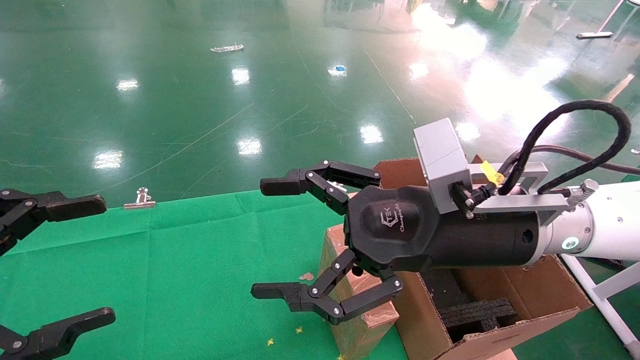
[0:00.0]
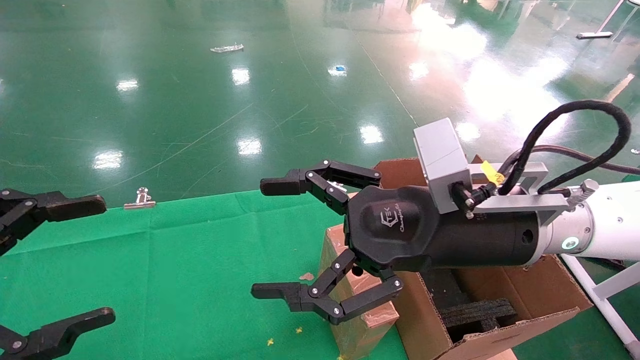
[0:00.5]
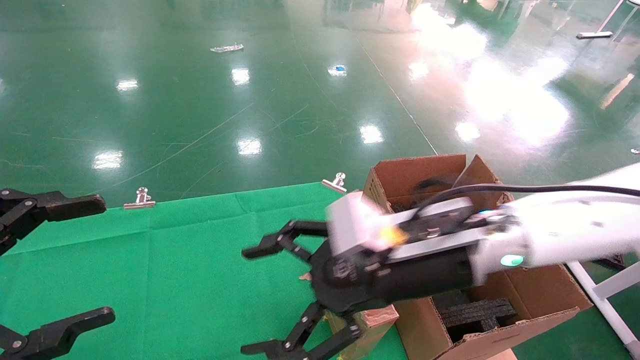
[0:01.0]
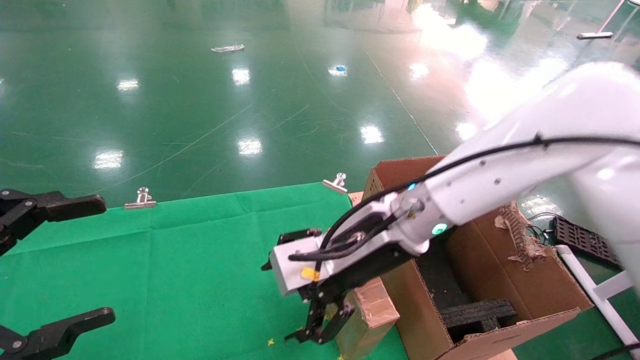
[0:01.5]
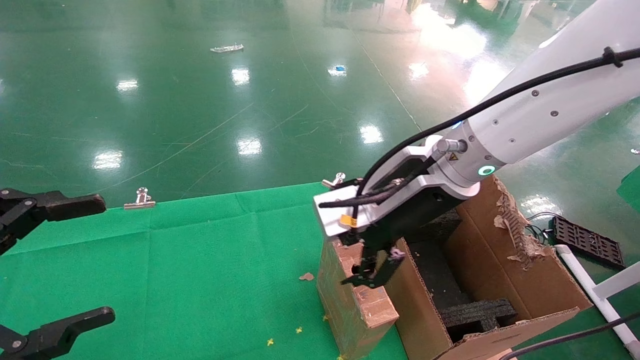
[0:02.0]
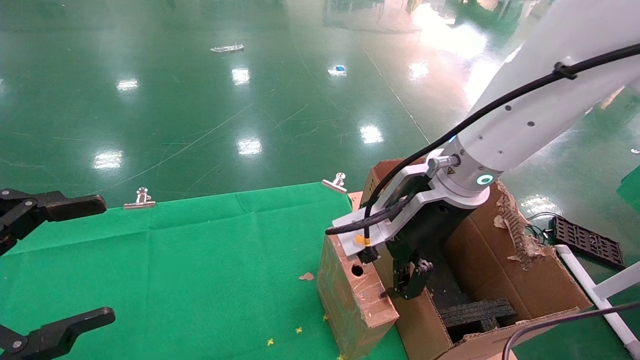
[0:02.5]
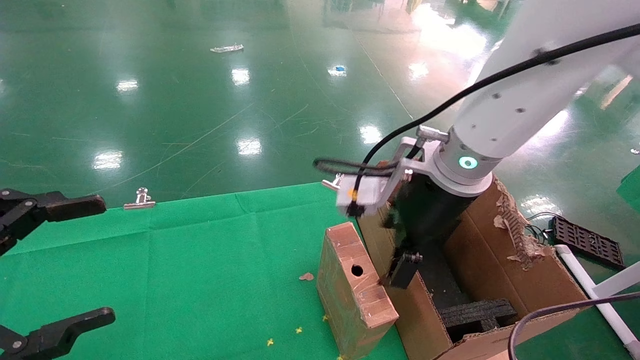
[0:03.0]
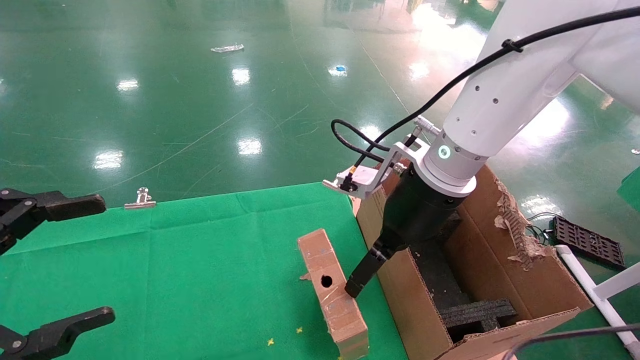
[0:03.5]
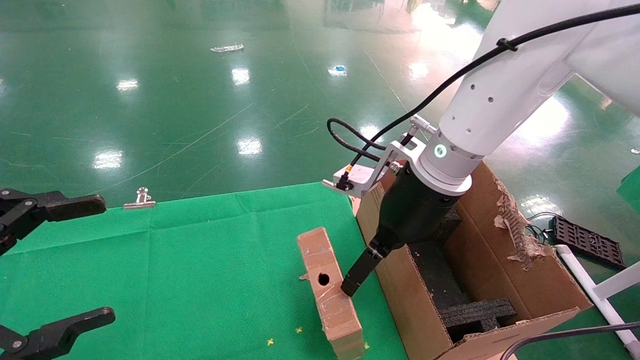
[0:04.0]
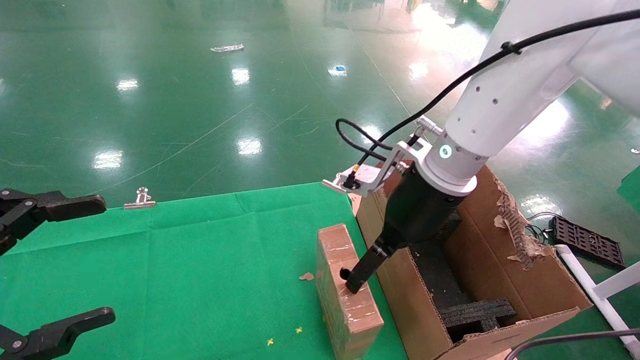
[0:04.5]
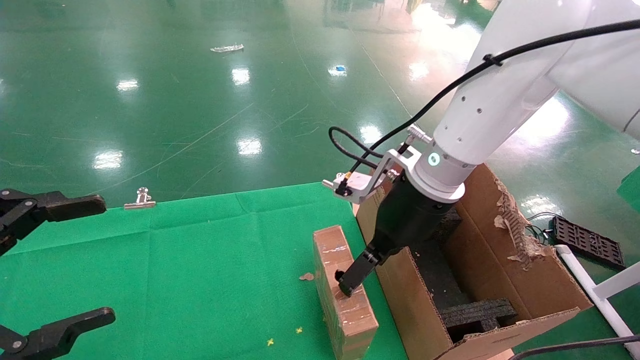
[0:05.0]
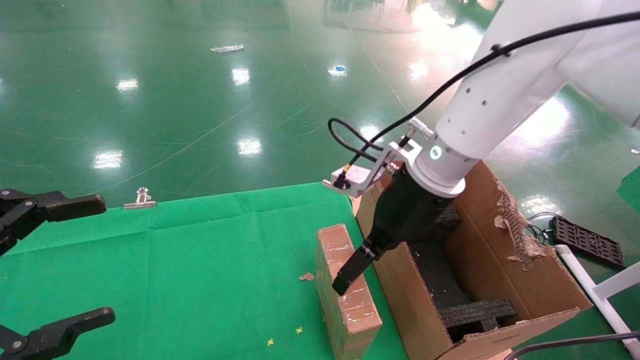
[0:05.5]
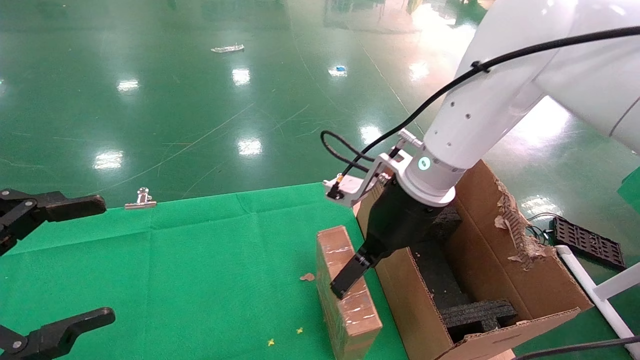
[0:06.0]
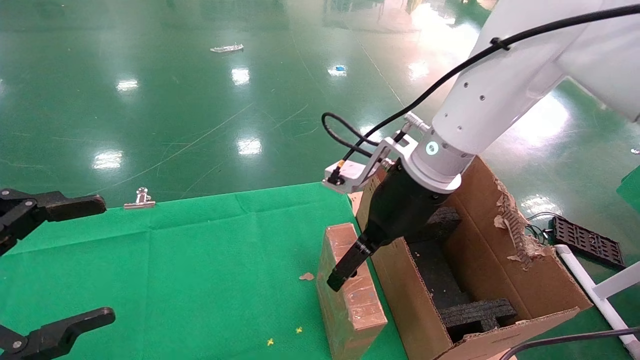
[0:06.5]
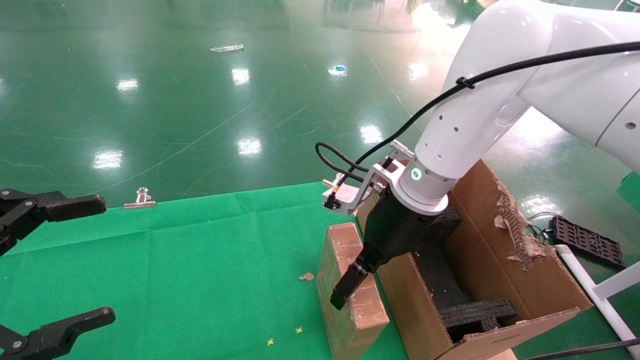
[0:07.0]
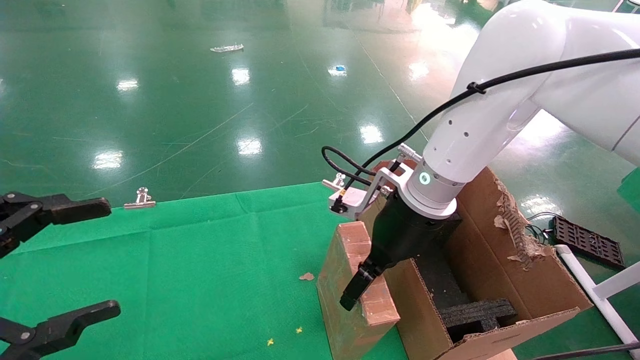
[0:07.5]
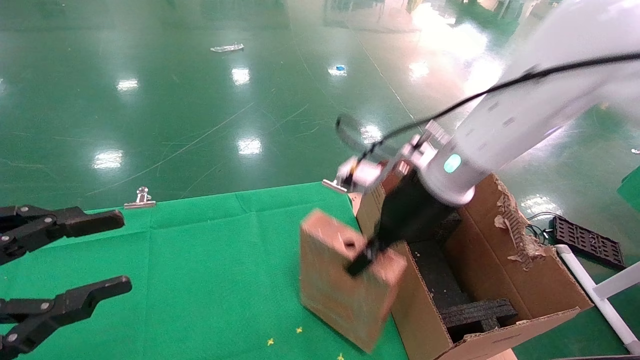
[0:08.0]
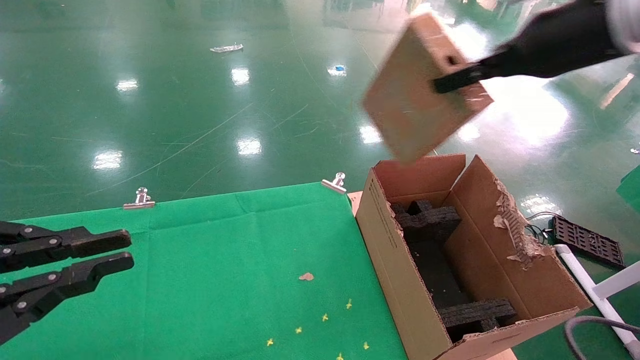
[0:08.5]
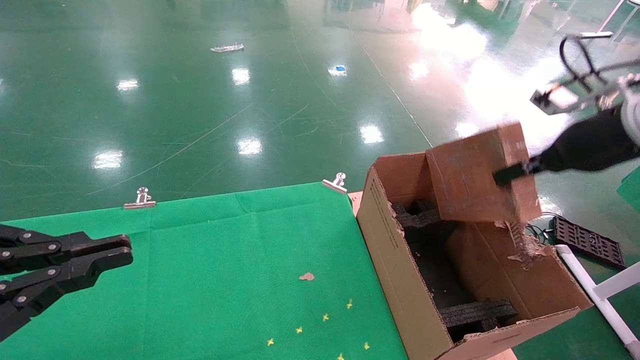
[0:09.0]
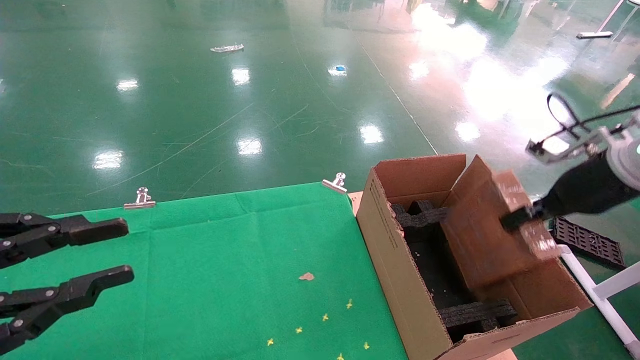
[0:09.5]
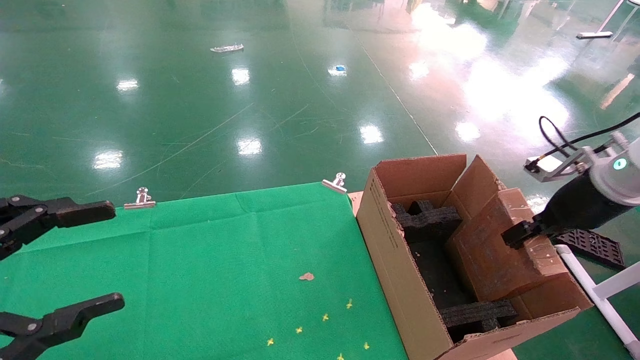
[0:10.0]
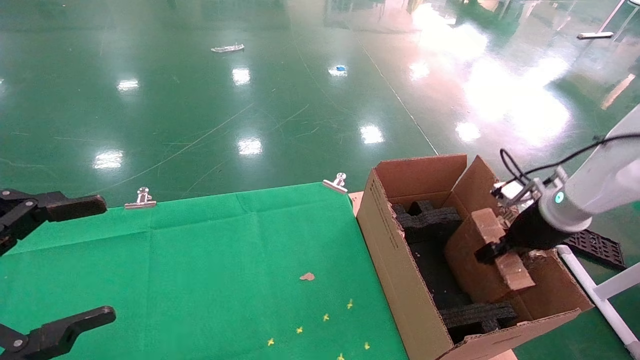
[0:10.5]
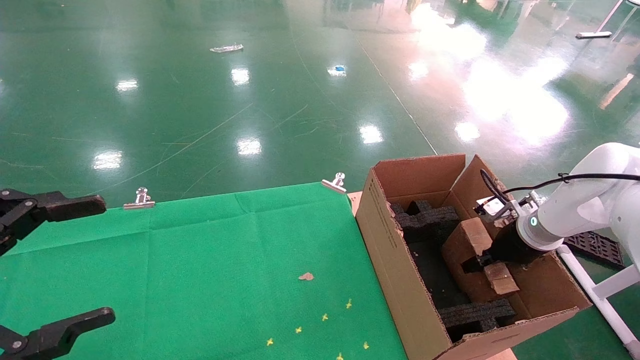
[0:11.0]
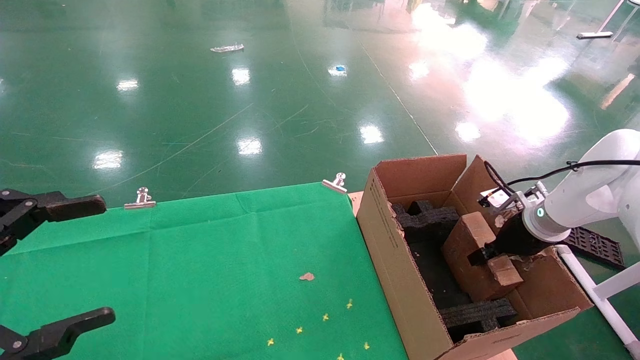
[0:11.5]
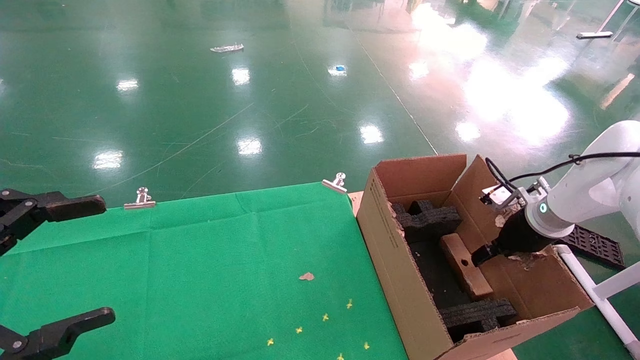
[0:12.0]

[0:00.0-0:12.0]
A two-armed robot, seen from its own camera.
Task of the whole recording: using a robotic arm to pick up a cardboard box and palace it the carton.
Step, 0:01.0 to 0:07.5: Pick up the mouse and the power cord paper box.
0:00.0 to 0:02.0: The right gripper heads forward, covering about 5 cm.
0:04.0 to 0:06.0: There are only small adjustments of the grippers.
0:06.0 to 0:08.0: The left gripper closes its fingers, while the right gripper closes.
0:08.0 to 0:10.0: The right gripper heads to the right, covering approximately 25 cm. The left gripper closes and opens again.
0:10.0 to 0:12.0: The right gripper moves downward and forward, about 10 cm, and opens up; the left gripper opens.

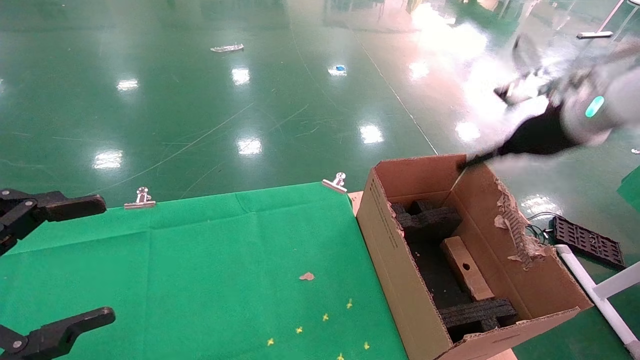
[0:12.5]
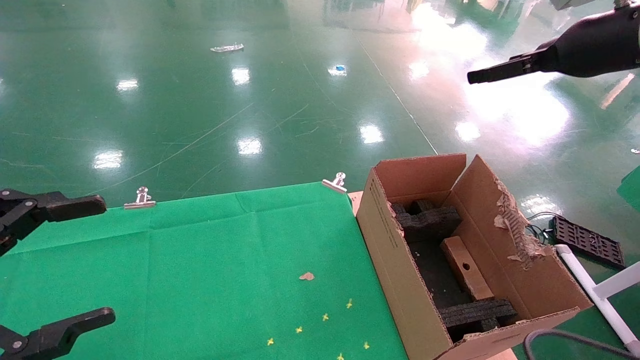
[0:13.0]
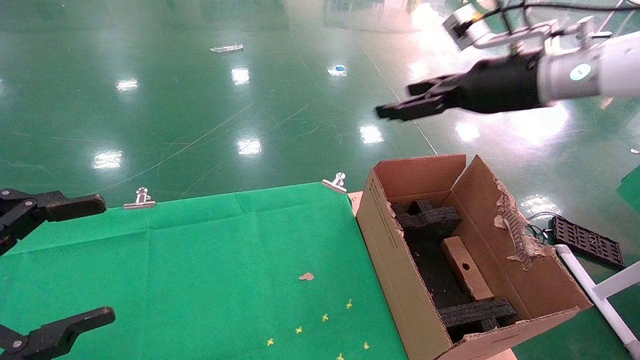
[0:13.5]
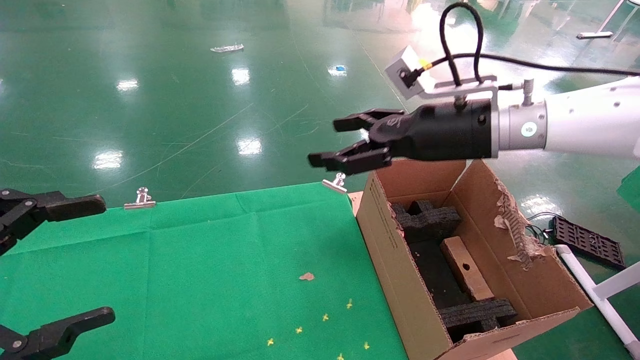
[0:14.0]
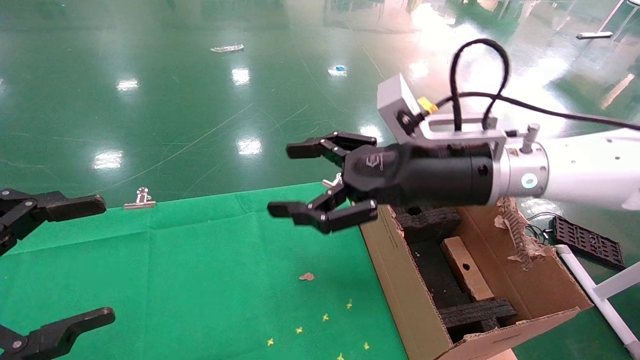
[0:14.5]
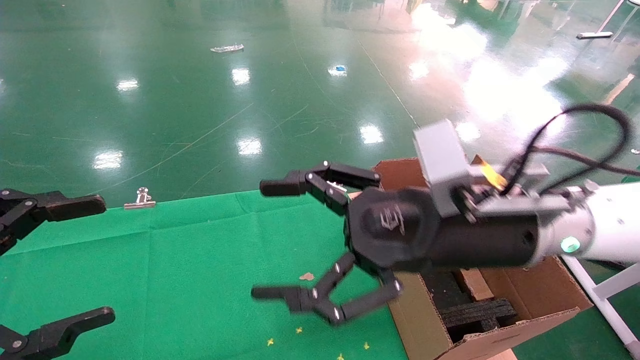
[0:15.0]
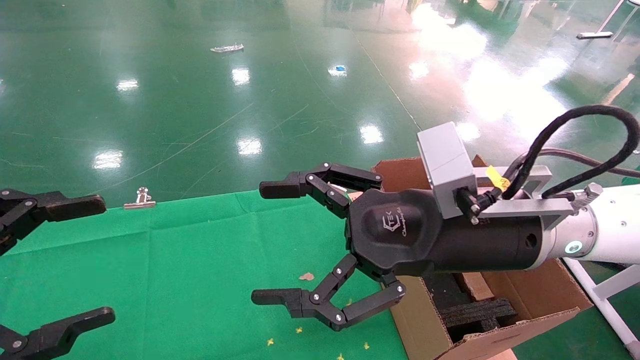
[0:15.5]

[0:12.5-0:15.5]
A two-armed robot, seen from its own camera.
Task of the whole recording: using a robotic arm to pick up a cardboard box and palace it the carton.
0:12.5 to 0:14.0: The right gripper travels to the left by some 20 cm.
0:14.0 to 0:15.5: The right gripper shifts some 15 cm backward, to the left and downward.

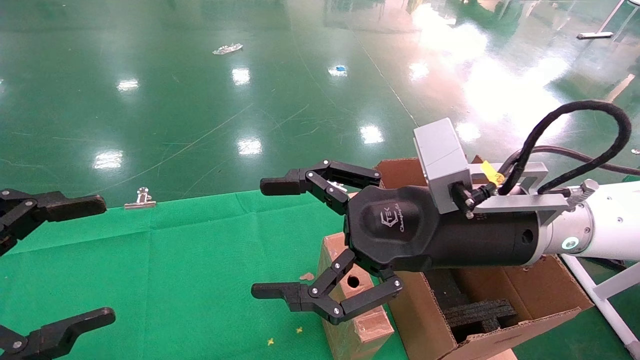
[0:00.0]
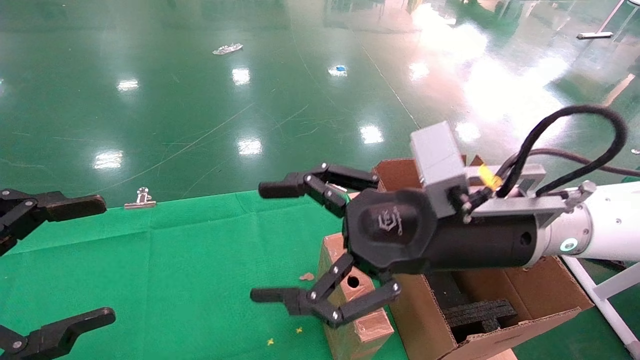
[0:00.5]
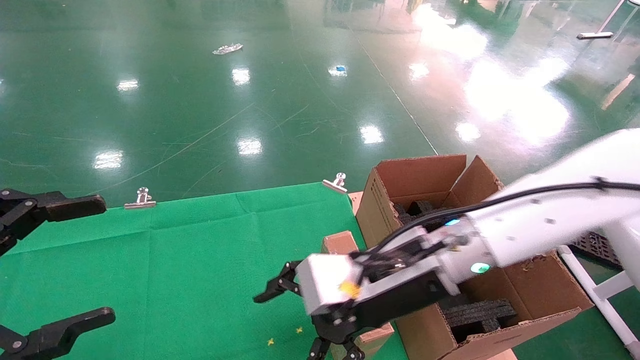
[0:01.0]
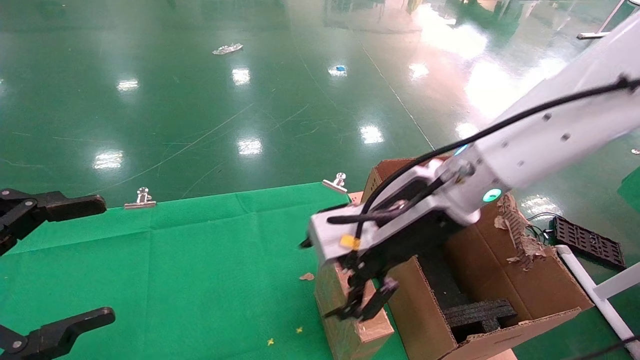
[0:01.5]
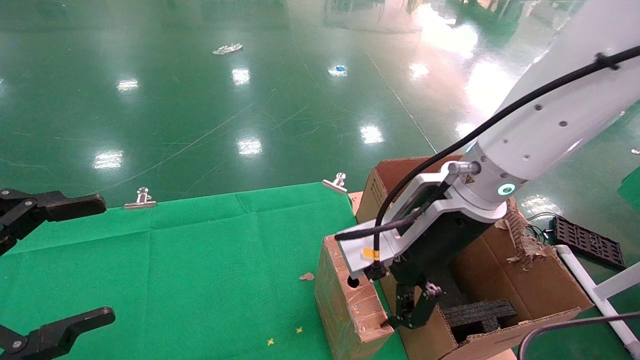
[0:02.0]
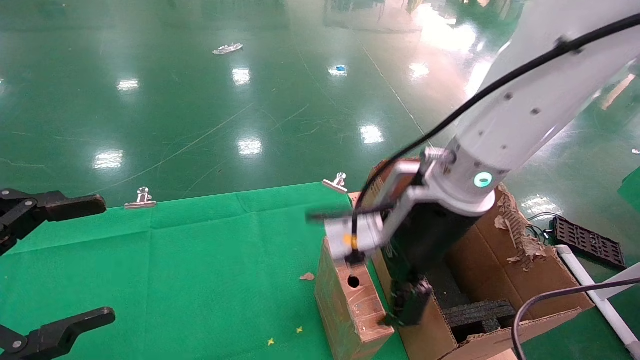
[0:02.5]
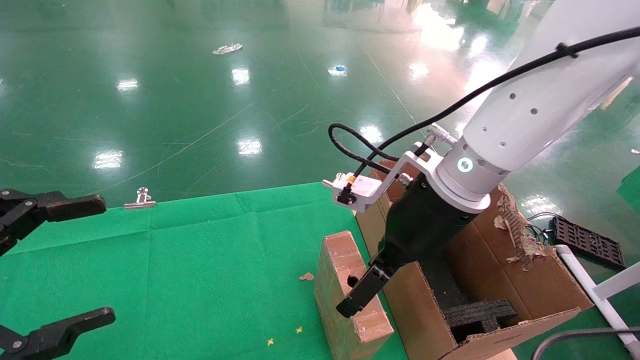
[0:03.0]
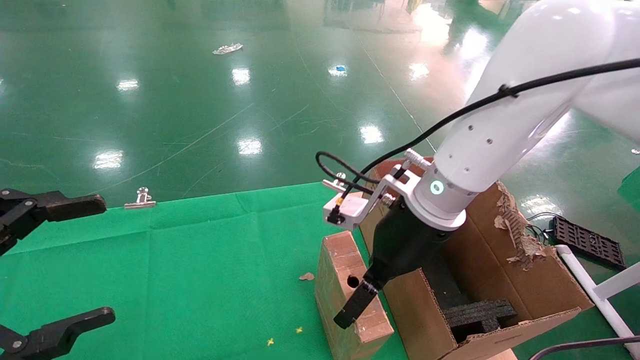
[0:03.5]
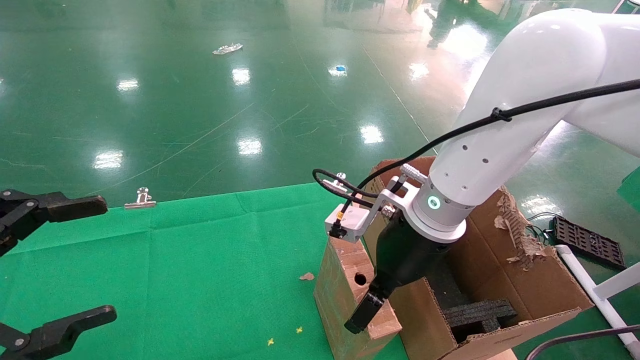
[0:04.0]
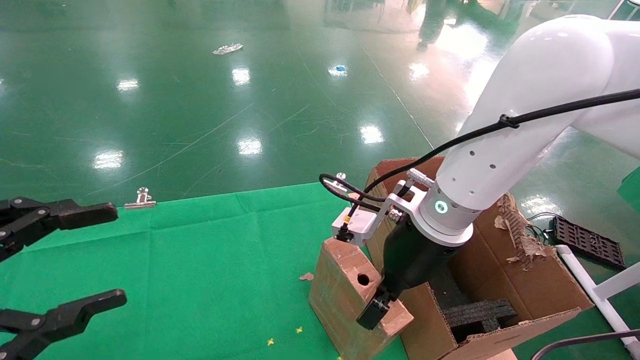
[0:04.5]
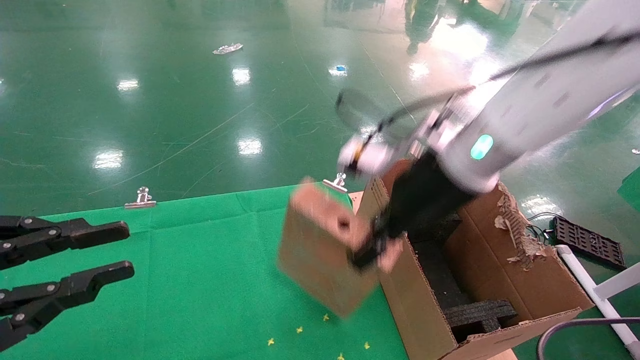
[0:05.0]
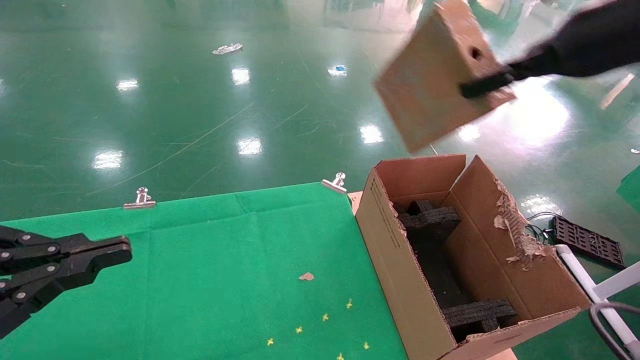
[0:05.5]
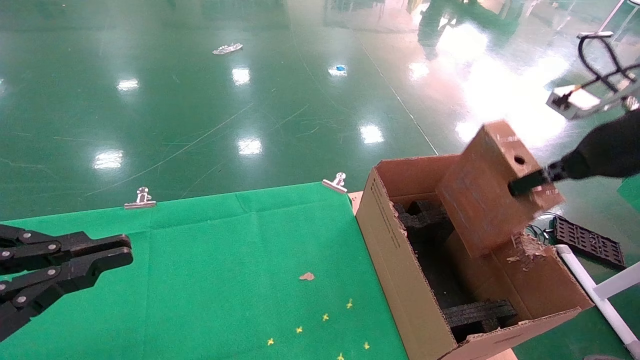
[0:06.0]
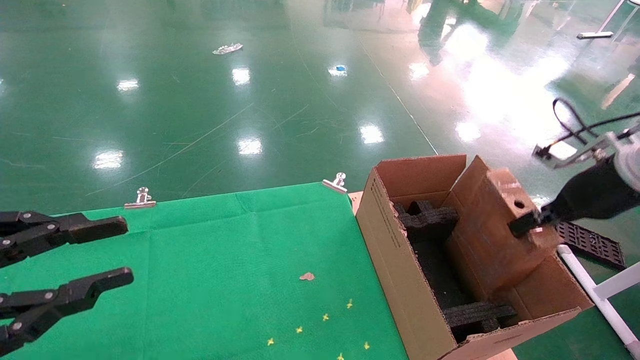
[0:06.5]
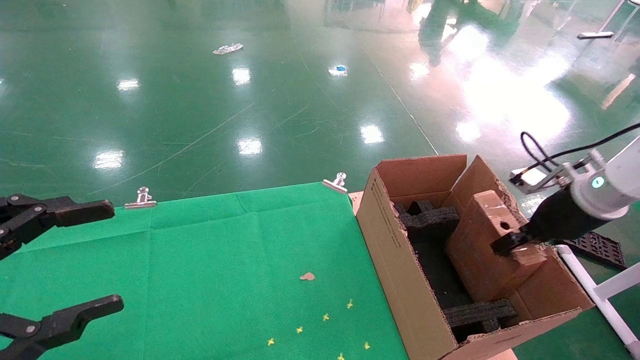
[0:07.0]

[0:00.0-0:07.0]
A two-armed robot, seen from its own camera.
Task of the whole recording: using a robotic arm to pick up a cardboard box and palace it the carton.
Step, 0:01.0 to 0:04.5: Pick up the mouse and the power cord paper box.
0:00.0 to 0:02.0: The right gripper changes place by about 5 cm.
0:03.5 to 0:05.0: The left gripper closes up. The right gripper heads upward, covering some 10 cm, and closes its fingers.
0:05.0 to 0:07.0: The right gripper goes some 30 cm to the right and downward. Meanwhile the left gripper opens its fingers.
